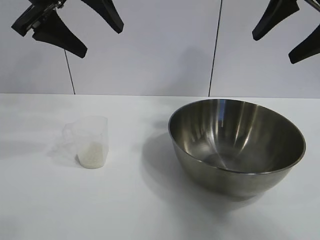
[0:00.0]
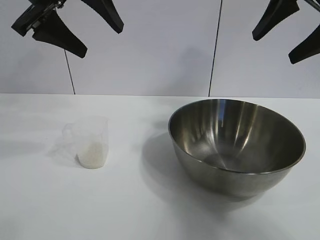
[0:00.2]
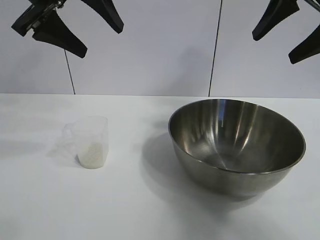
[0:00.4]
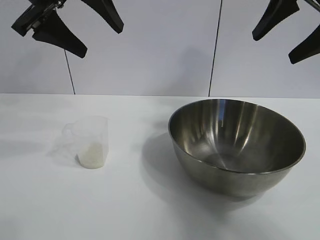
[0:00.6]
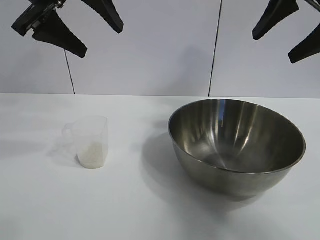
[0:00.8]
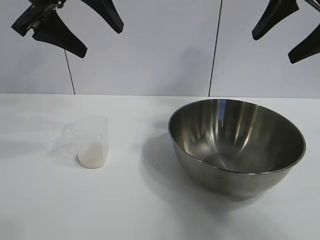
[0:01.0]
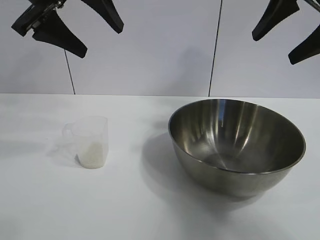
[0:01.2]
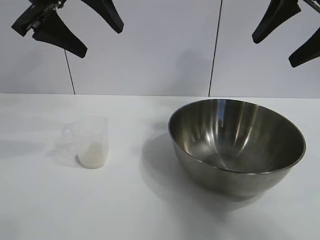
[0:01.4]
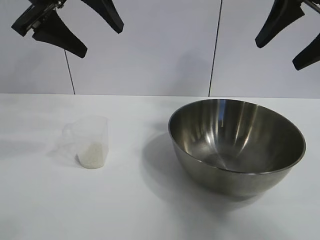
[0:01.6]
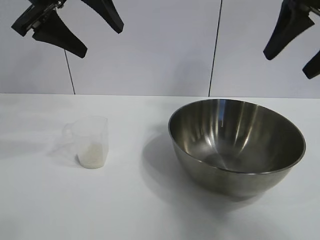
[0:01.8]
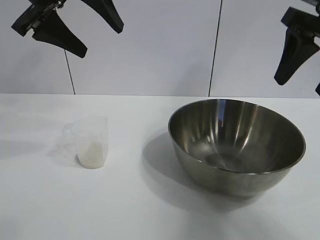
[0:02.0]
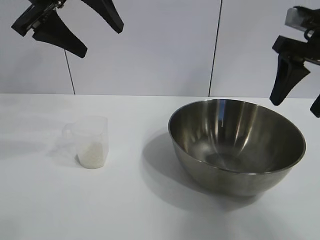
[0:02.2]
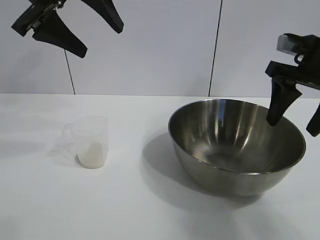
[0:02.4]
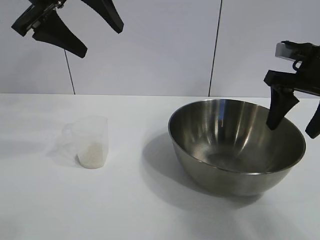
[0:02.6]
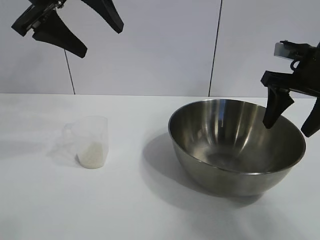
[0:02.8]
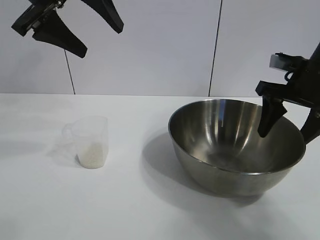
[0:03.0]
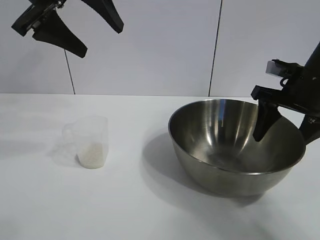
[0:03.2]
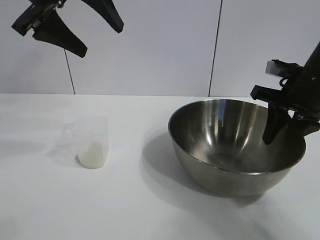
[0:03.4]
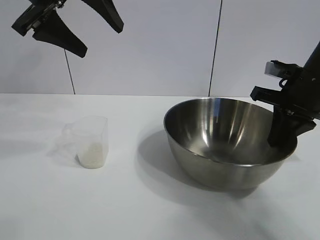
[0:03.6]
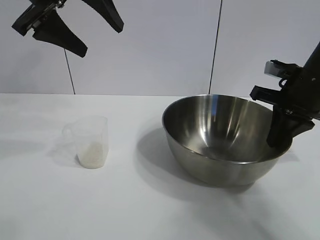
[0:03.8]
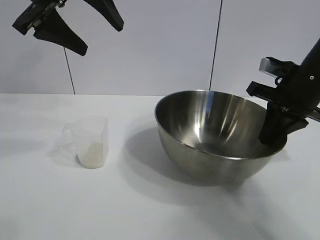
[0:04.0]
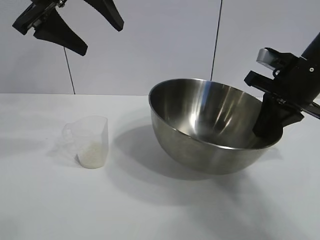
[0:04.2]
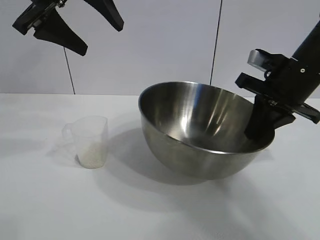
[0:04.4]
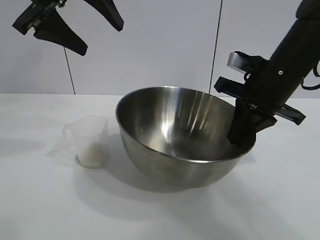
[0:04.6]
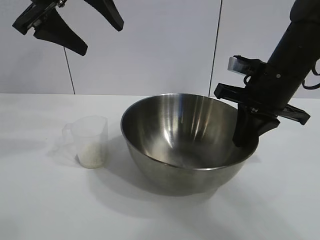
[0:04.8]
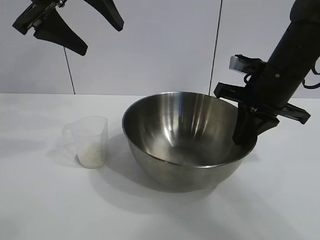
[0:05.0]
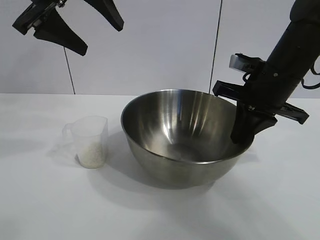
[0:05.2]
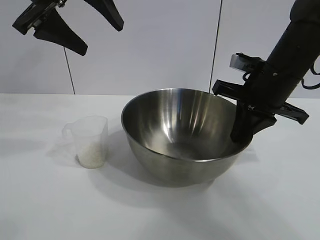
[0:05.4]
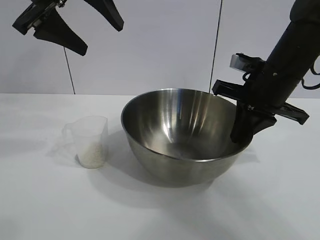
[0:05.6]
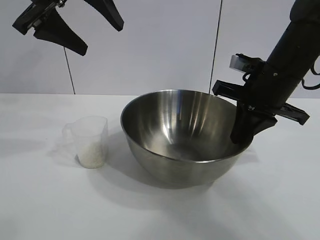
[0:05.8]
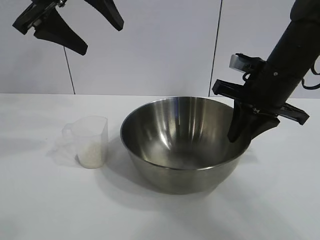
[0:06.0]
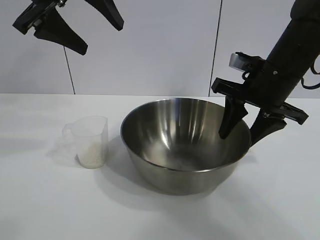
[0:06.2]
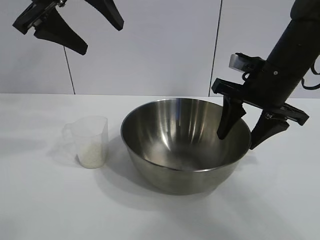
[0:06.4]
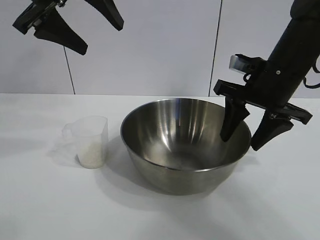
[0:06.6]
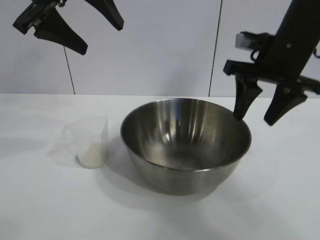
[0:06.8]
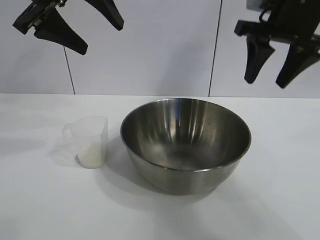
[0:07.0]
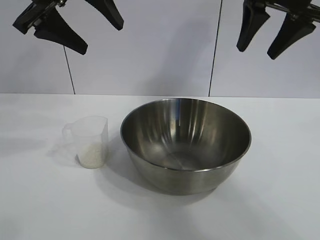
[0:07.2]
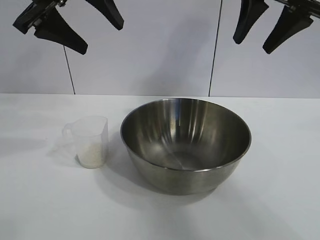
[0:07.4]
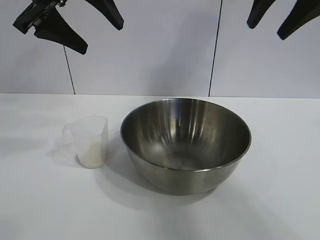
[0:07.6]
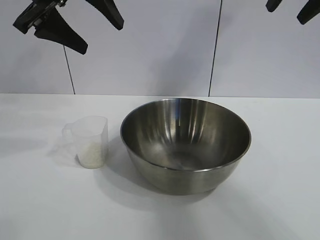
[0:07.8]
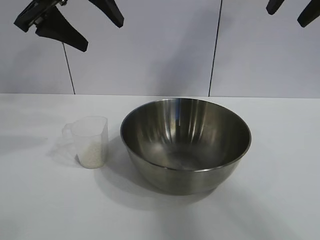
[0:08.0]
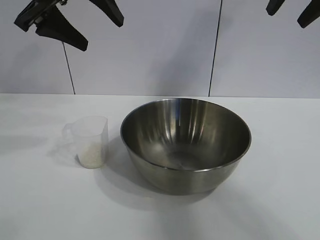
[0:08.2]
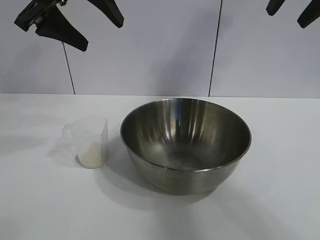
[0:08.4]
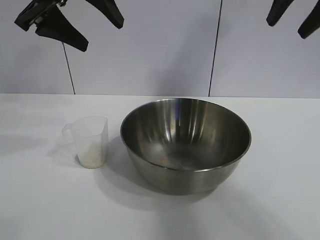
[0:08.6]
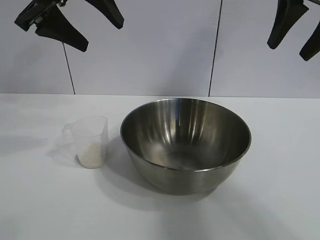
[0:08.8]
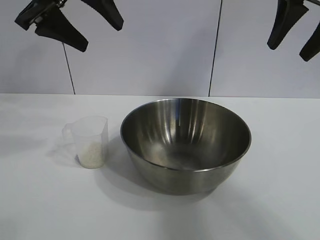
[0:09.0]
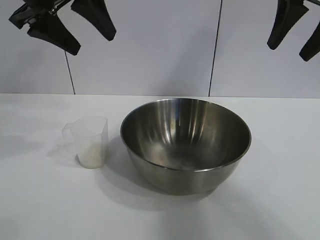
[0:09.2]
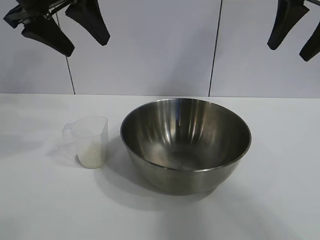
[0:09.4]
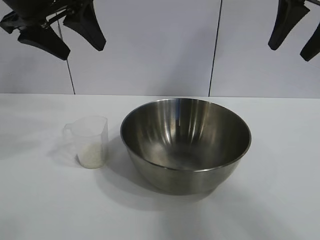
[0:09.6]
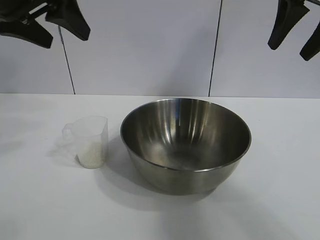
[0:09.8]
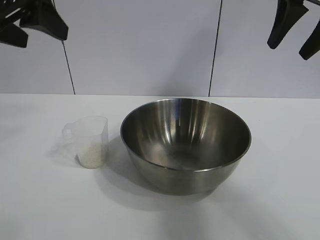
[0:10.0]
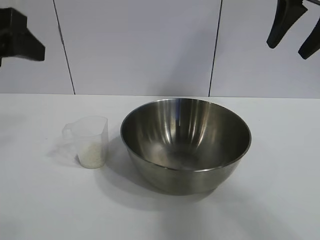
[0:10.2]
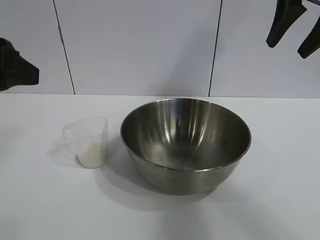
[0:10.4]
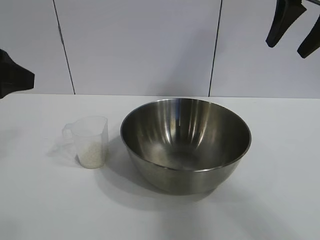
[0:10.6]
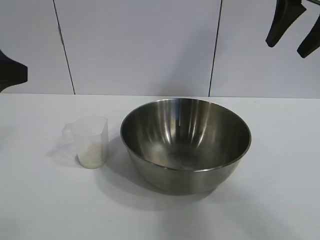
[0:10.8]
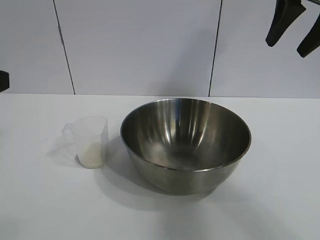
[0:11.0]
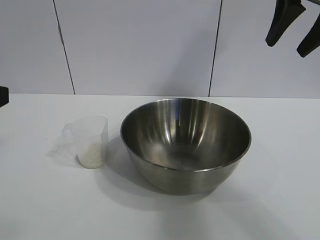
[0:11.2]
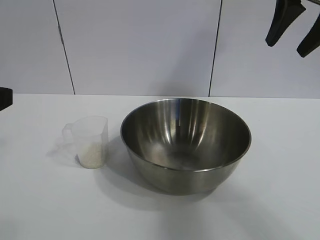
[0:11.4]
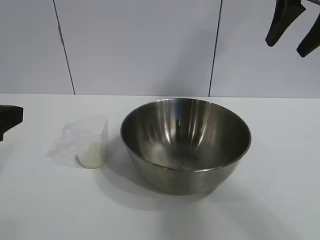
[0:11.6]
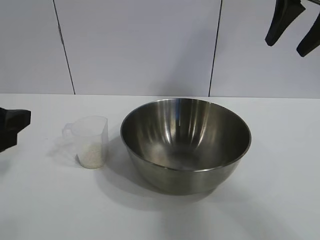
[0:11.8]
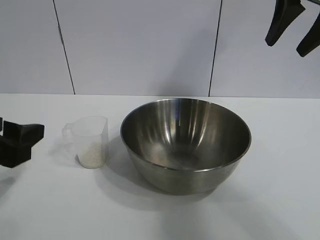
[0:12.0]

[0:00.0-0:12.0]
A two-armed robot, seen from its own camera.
Task of the whole recording: the right gripper grasp the rice container and place it in the center of the table, the left gripper grasp the rice scoop and pour the rice into the rice container.
Step, 0:01.2 to 0:06.4: Move the bowl in the center of view with right gripper.

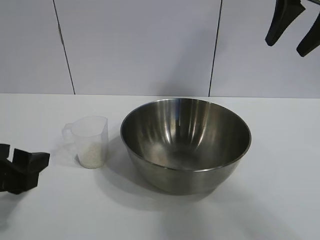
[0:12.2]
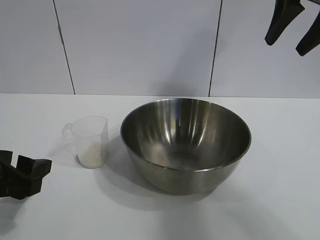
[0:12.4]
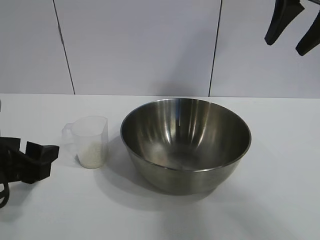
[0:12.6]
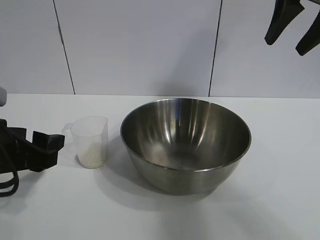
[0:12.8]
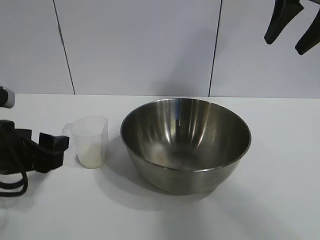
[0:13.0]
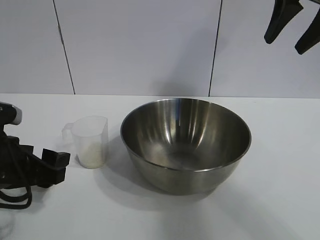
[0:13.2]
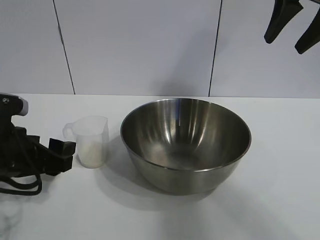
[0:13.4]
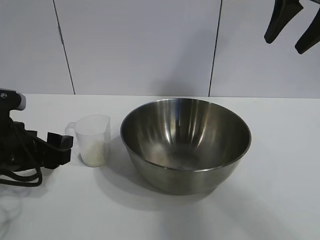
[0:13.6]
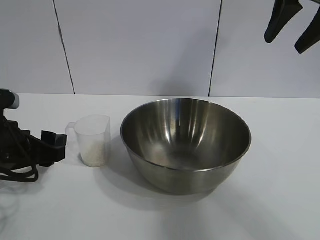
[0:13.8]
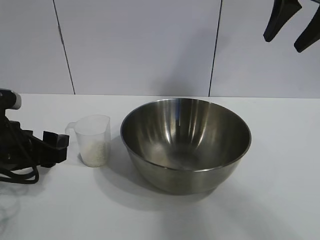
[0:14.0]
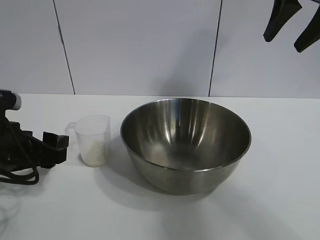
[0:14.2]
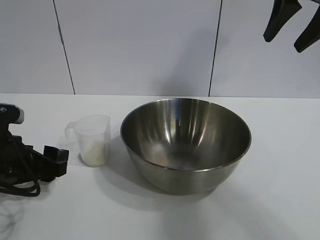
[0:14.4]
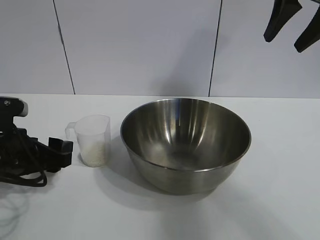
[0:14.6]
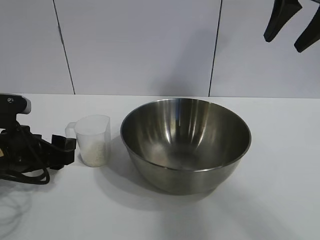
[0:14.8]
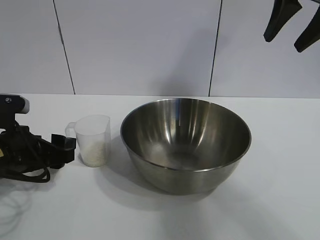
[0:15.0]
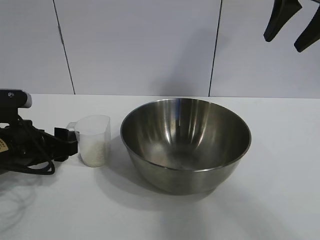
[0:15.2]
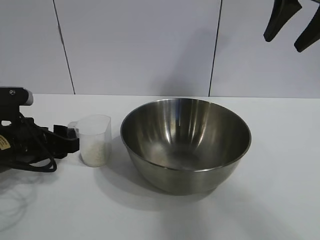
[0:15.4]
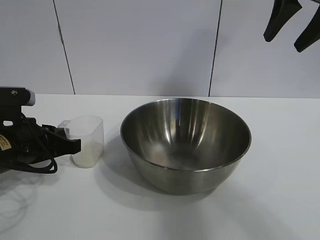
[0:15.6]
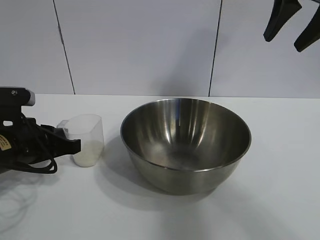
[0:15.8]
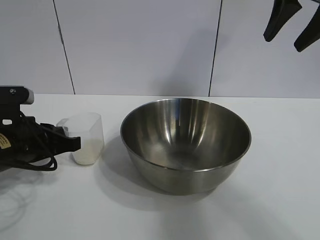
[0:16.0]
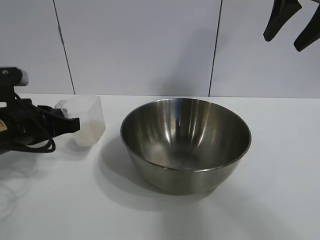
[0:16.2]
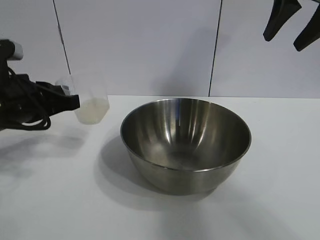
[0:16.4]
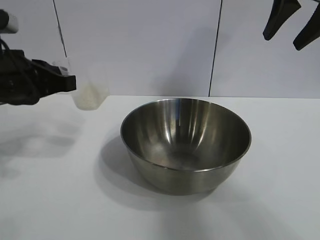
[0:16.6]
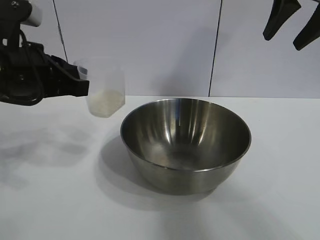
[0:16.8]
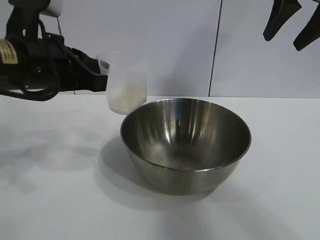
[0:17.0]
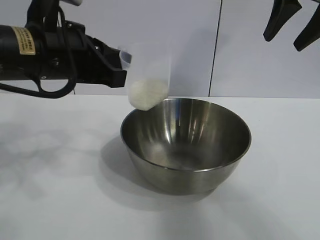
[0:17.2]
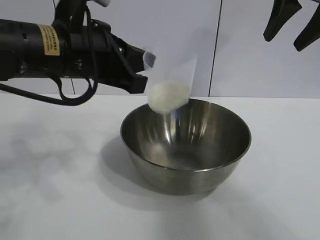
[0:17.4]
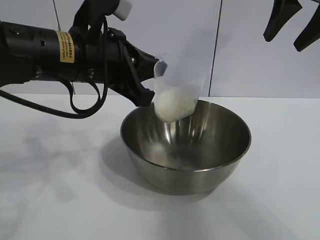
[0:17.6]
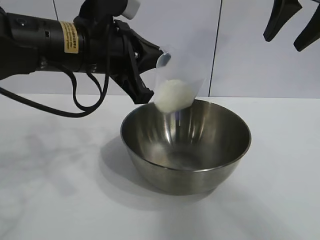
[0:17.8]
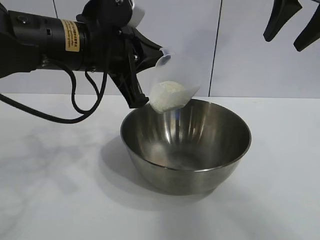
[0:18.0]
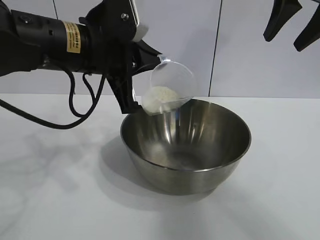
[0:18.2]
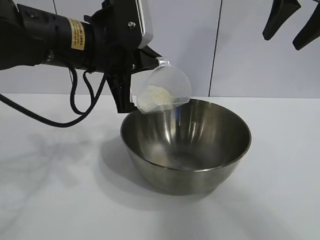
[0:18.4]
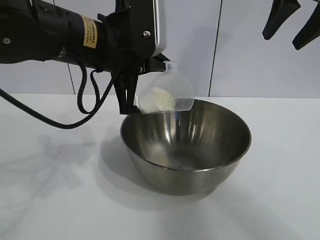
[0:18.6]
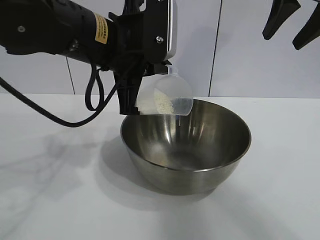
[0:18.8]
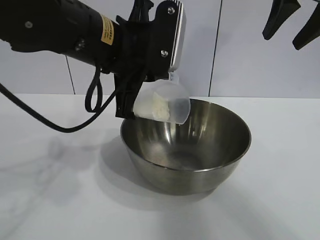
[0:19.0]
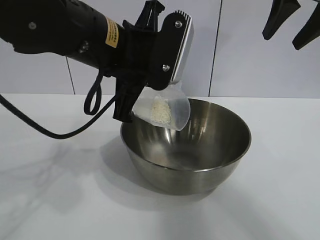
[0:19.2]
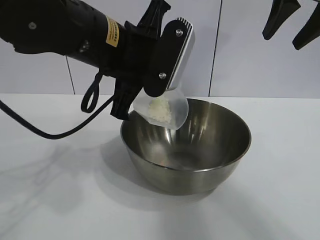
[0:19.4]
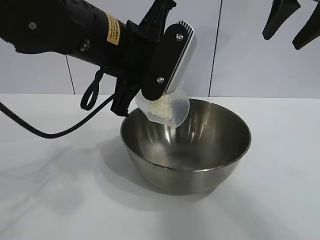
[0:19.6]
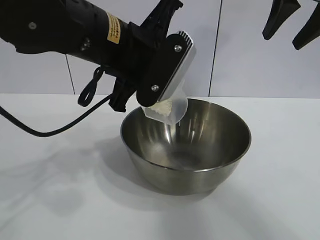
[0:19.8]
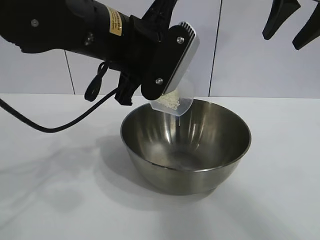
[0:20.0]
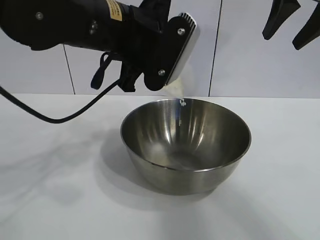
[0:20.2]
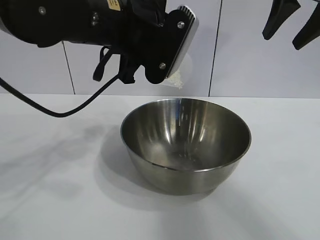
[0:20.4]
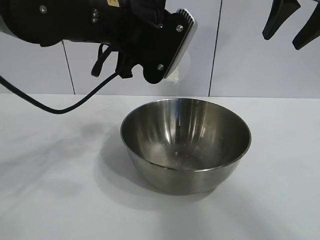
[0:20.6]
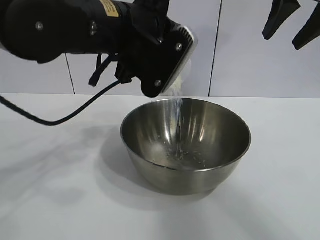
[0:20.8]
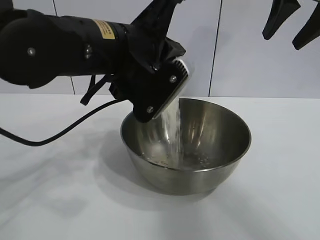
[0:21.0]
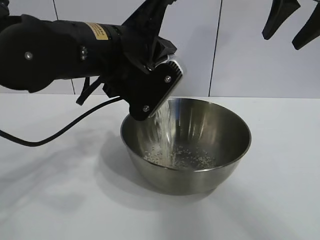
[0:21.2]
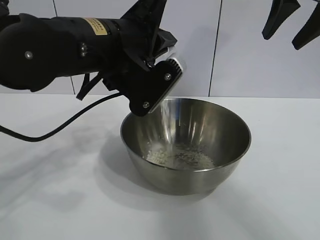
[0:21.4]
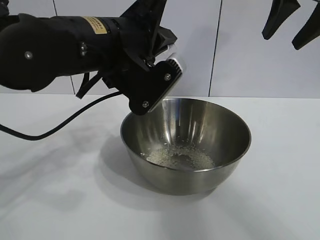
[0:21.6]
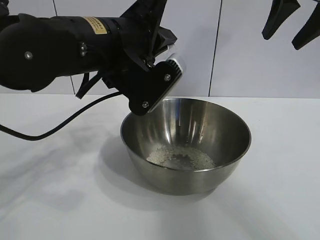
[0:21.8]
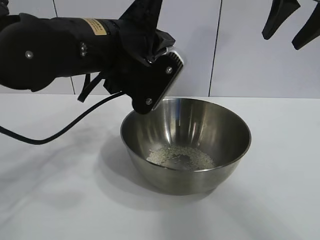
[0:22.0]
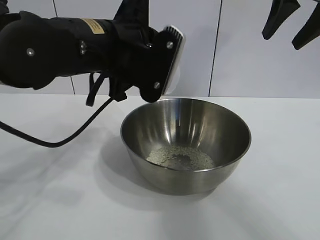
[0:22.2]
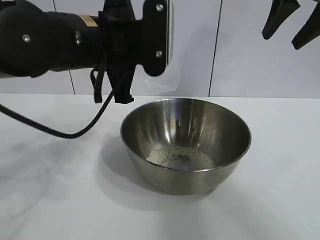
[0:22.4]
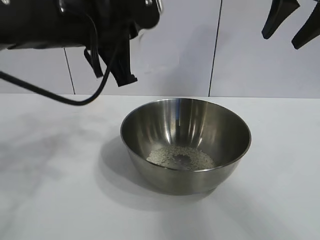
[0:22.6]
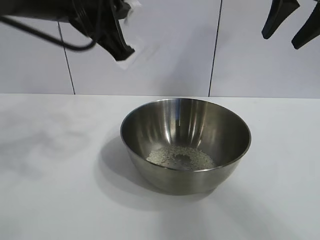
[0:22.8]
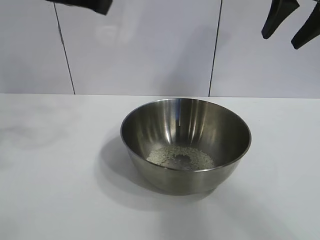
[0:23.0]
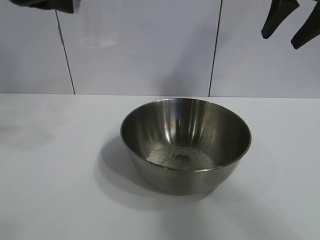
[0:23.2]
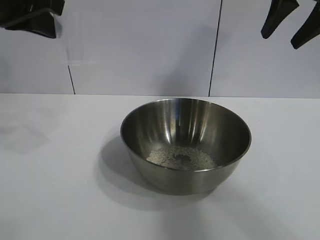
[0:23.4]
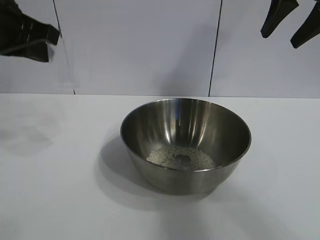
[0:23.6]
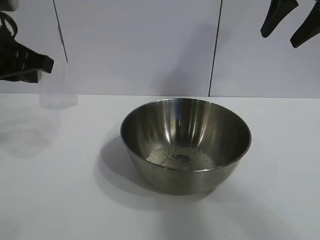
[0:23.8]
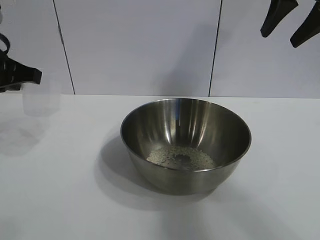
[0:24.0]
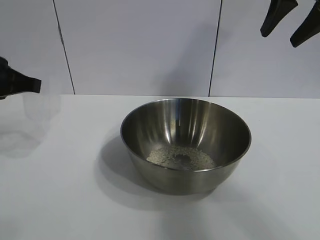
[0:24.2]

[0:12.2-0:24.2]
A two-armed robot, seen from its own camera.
Task of the whole recording: the right gripper grasp the rice container and place it in the center of the table, the left gripper grasp the rice scoop and pour the rice into the rice container.
Step, 0:12.2 to 0:15.8: Grasp the cup with rice in it with left gripper.
Step, 0:16.0 to 0:21.6: Pour the rice from the cup into the bowl with the left gripper.
